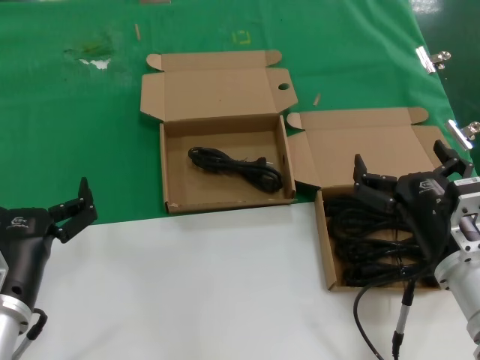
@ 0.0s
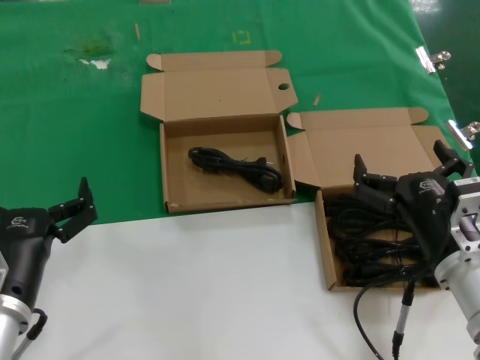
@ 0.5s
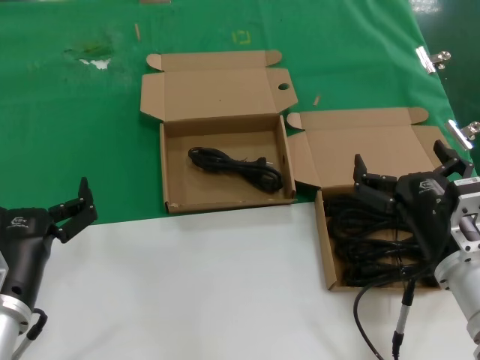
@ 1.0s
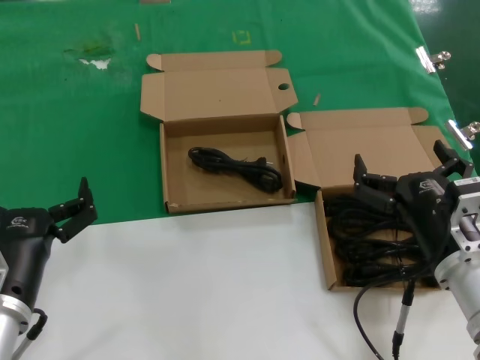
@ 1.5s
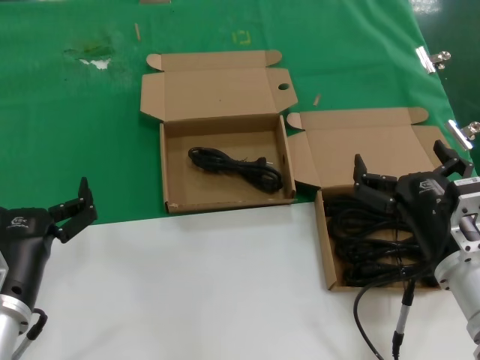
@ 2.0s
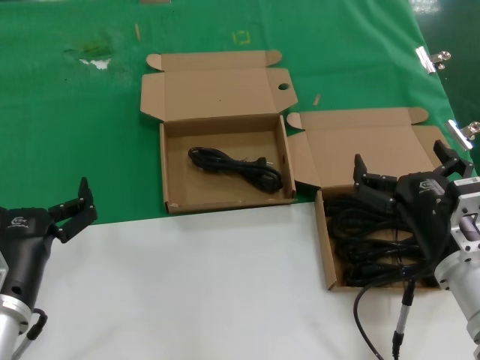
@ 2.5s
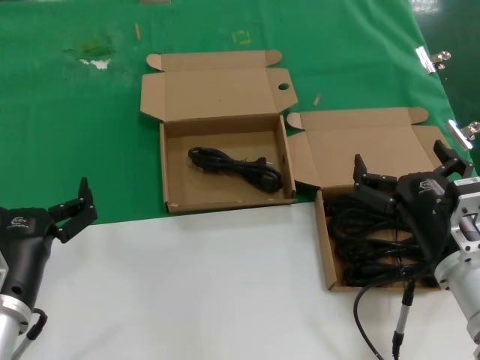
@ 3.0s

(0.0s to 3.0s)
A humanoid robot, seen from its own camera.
Task of the whole recording: take the parts from the box containing them and put them into an empty box.
0.0s - 3.0s: The two hands keep their place.
